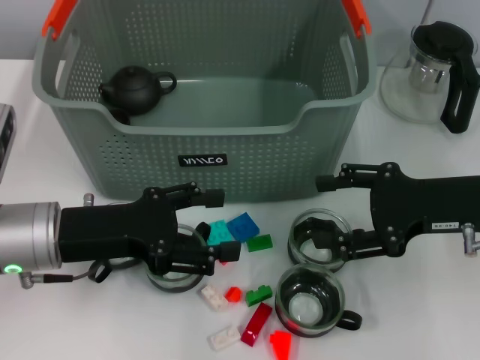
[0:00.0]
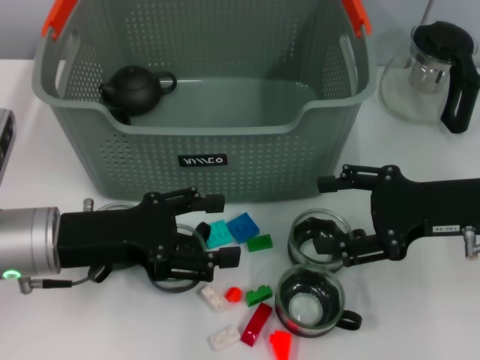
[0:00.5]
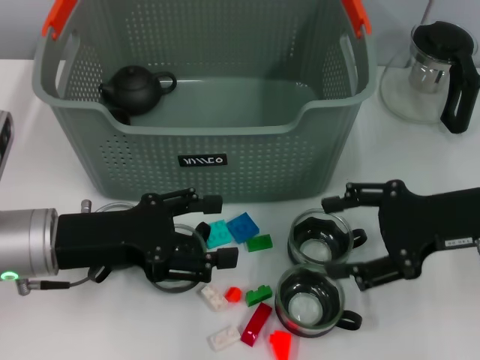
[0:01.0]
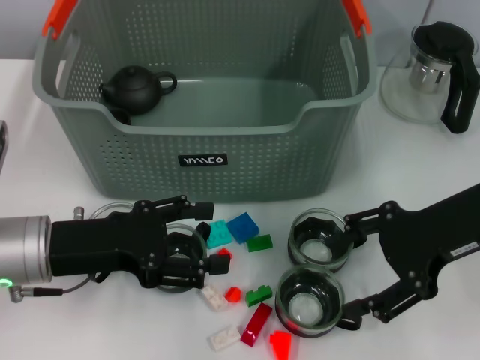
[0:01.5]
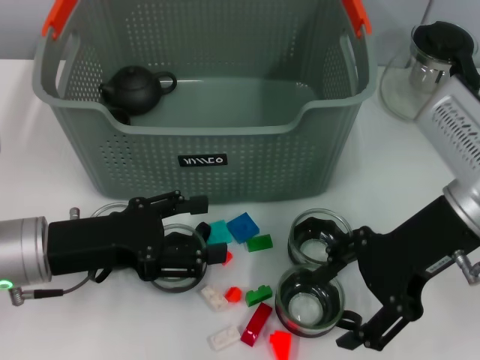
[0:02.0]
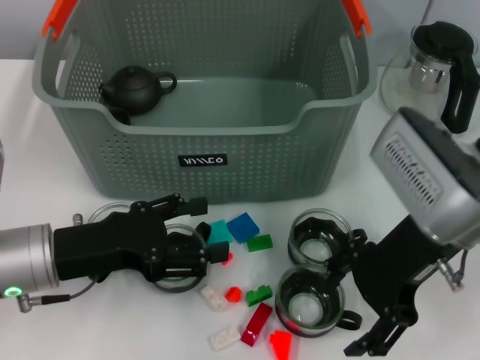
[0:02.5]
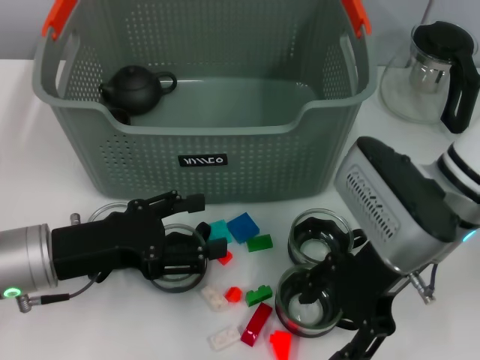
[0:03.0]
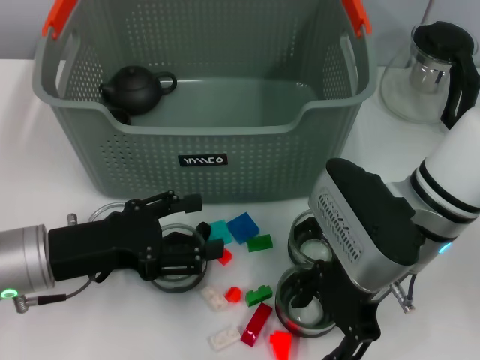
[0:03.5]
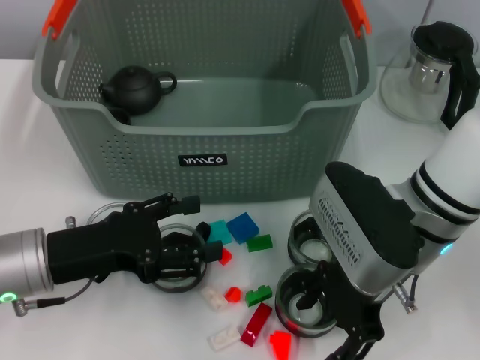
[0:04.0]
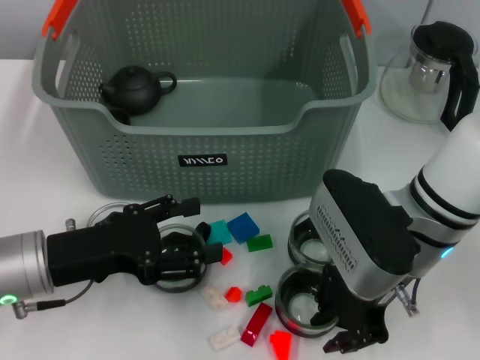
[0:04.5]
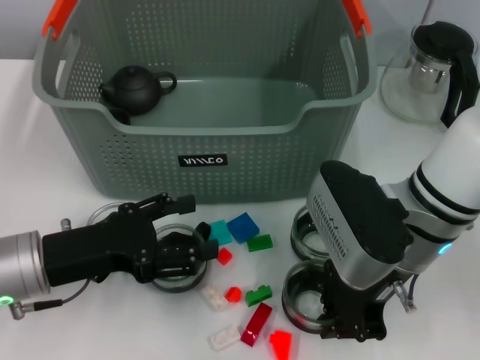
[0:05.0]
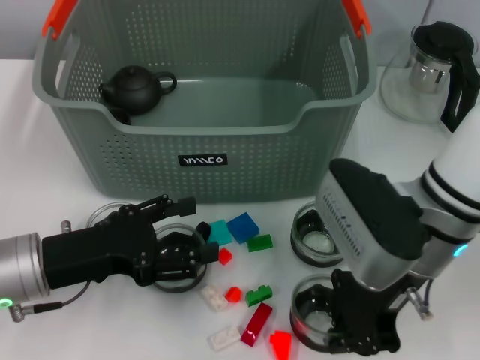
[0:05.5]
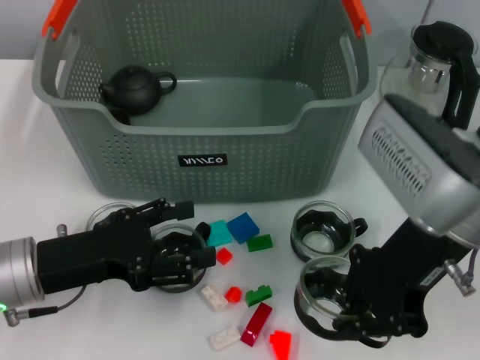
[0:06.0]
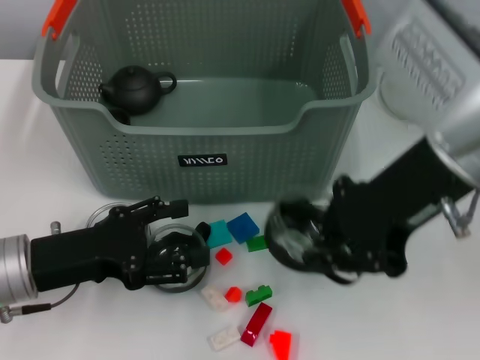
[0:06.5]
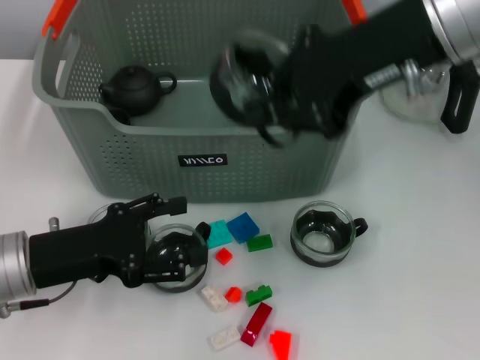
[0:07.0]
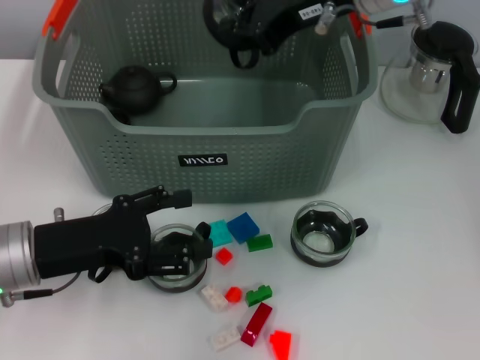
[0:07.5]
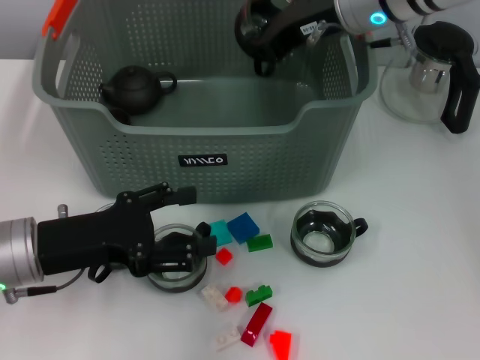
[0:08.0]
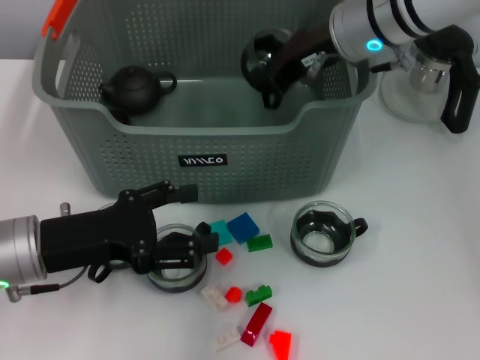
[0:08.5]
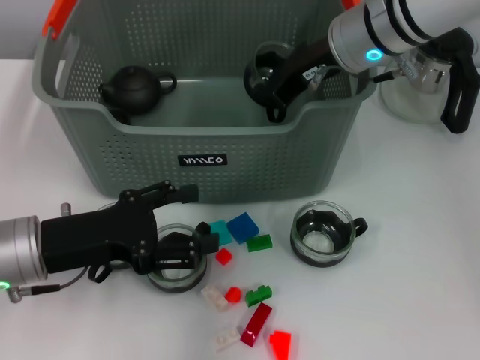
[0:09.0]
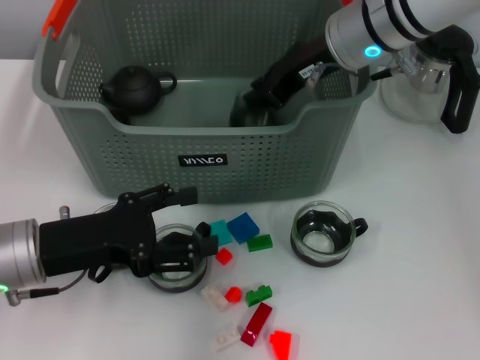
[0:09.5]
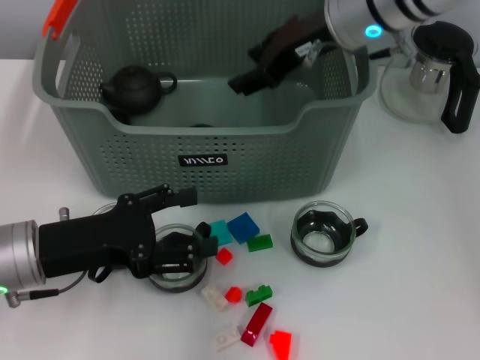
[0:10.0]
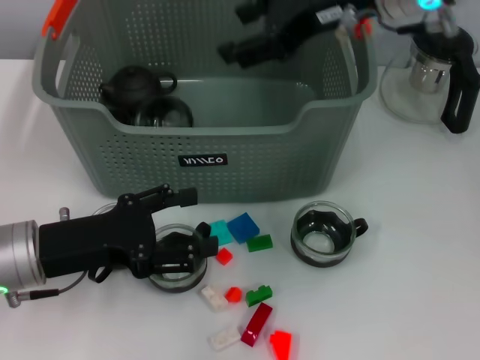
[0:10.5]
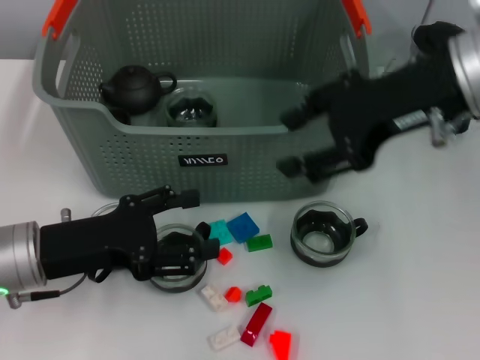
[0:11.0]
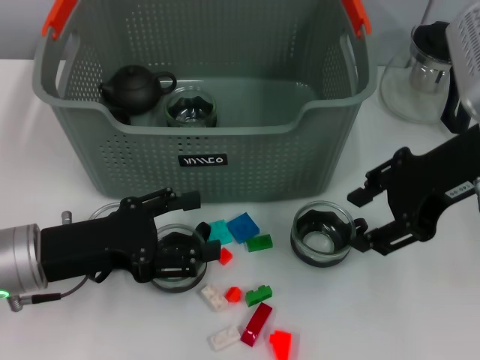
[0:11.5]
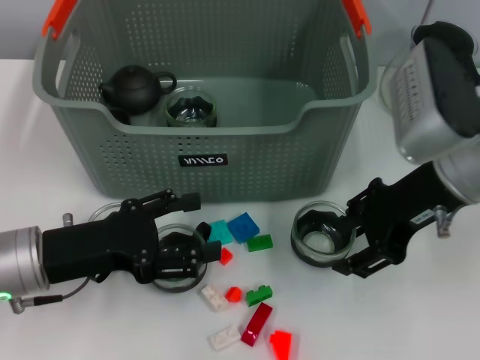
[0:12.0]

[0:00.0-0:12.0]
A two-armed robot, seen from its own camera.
Task of the whole recording: pick up the teacup on the table and place it into the storage bin, pick up the block on the table and place it into the storage bin.
Step, 0.0 to 5.0 s: Grasp the cup with right gripper.
Step, 5.5 to 9.5 s: Place the cup in the storage box with right gripper.
0.0 to 2.0 s: The right gripper shifts roughly 5 cm to the left.
2.0 to 4.0 s: The right gripper moves to the left, about 5 cm.
4.0 to 6.0 s: The right gripper is displaced upward by roughly 5 cm, and closes up.
6.0 to 8.0 s: The right gripper shifts about 15 cm forward.
8.0 to 10.0 s: The right gripper opens its fingers.
10.0 to 12.0 s: The right gripper goes some 15 cm backward and to the right.

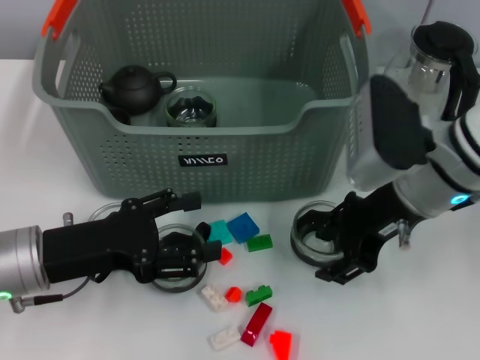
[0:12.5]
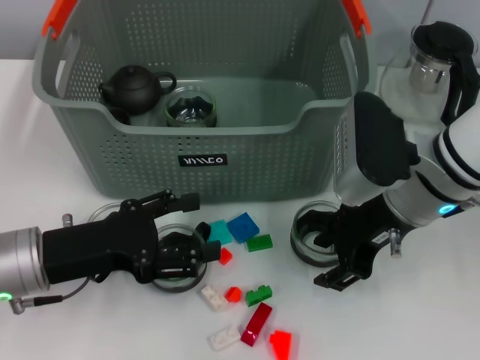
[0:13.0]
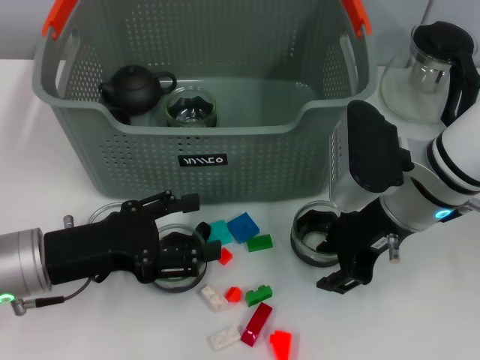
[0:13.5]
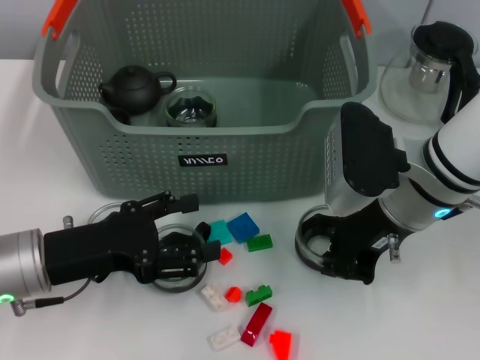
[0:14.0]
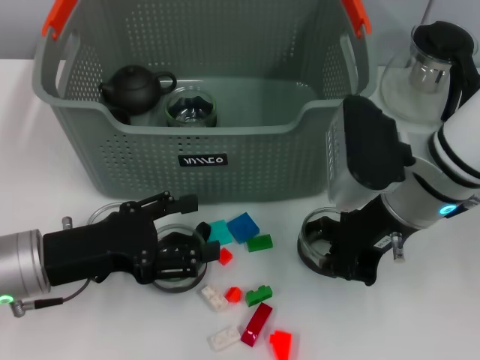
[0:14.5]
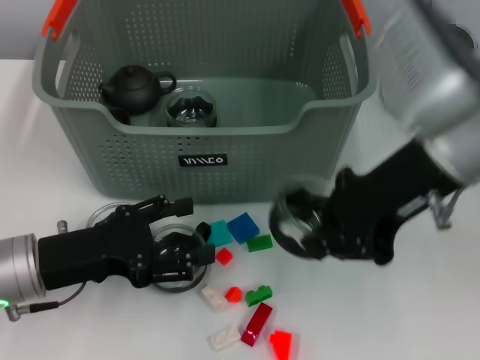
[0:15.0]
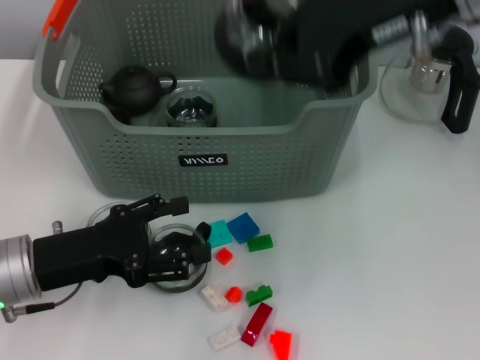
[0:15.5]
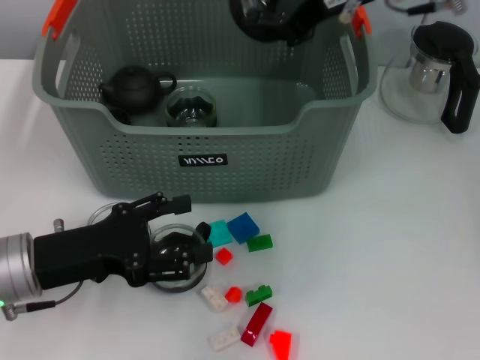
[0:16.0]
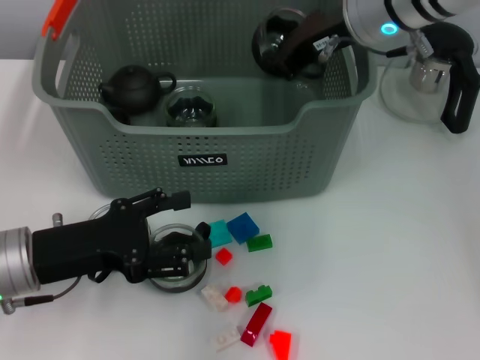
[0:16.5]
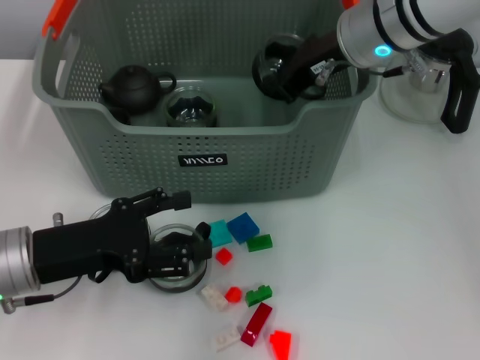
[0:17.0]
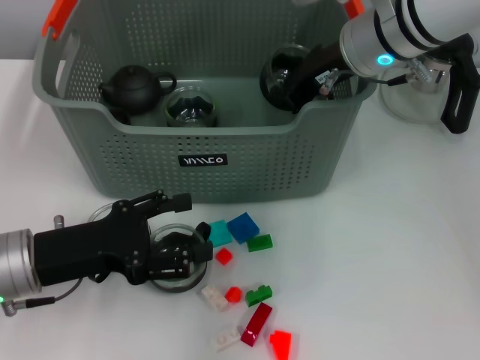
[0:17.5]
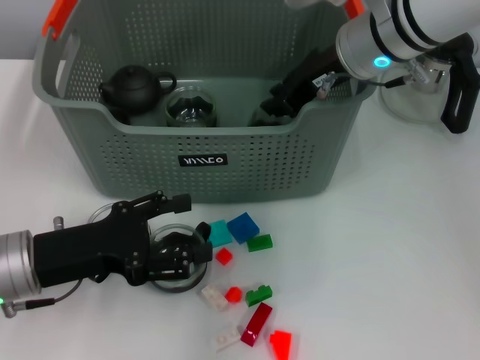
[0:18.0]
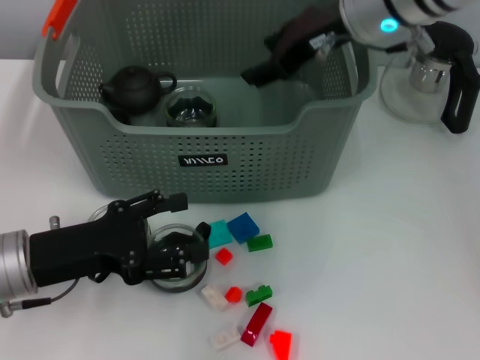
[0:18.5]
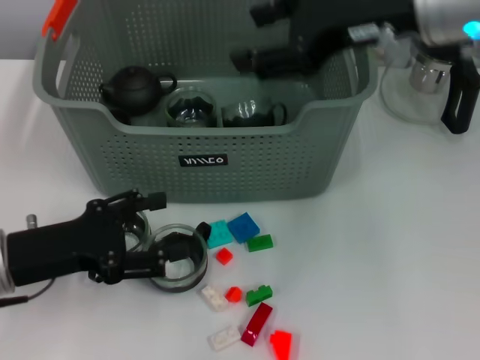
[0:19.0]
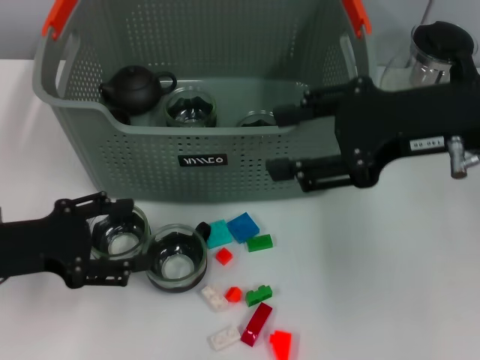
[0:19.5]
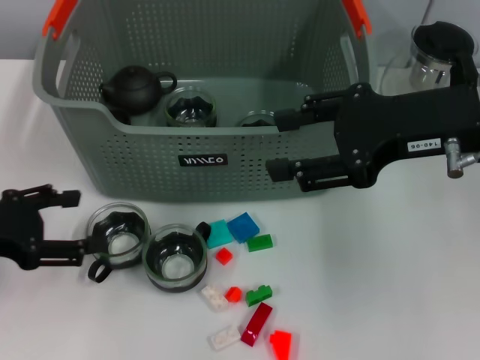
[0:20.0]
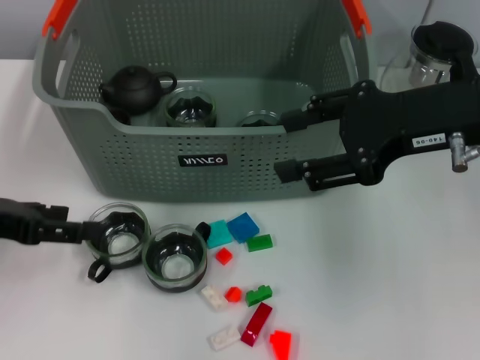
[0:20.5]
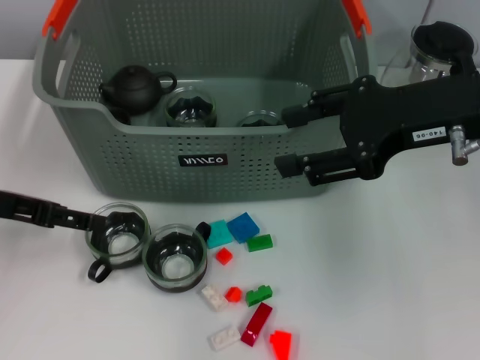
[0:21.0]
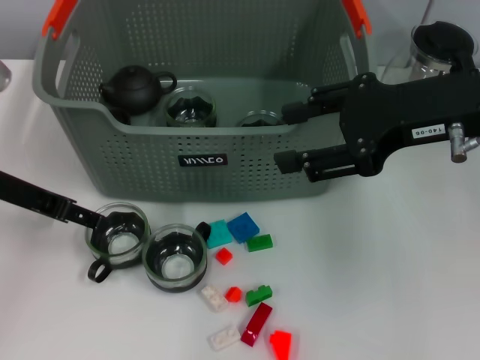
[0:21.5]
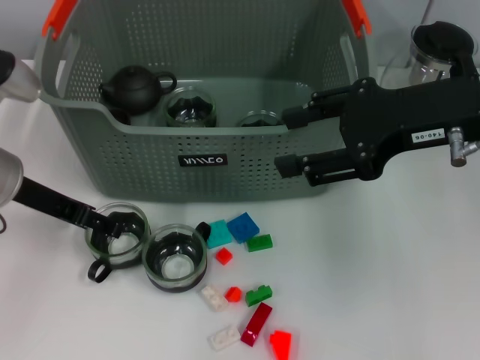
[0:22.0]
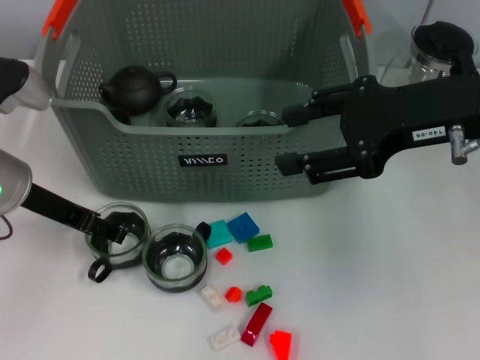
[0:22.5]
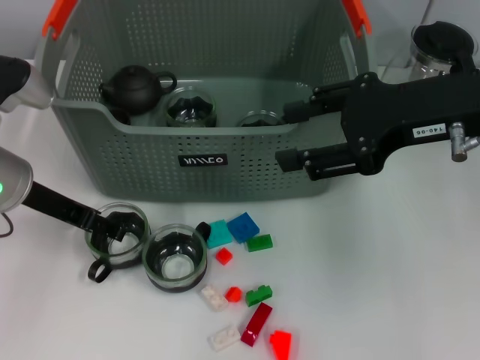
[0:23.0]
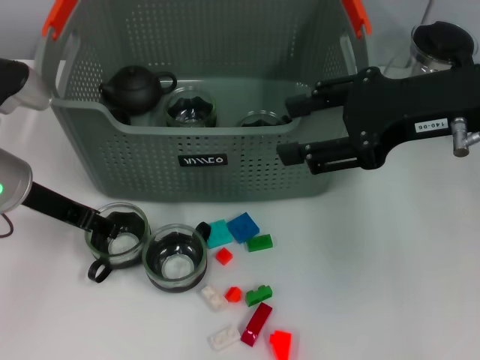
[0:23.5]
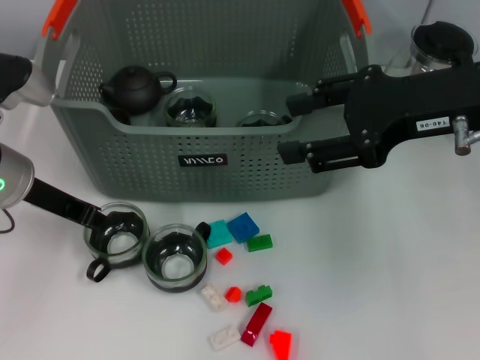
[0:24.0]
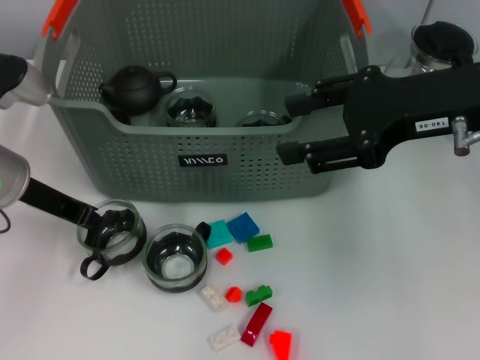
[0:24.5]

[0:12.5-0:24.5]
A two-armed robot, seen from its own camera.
Task of the whole recording: pick up the teacup on the table and place it into the storage bin, pick up the block on the table and place it into the storage bin.
Step, 14.5 to 18.0 s: Place the cup in the storage box with right gripper.
Step, 18.5 to 24.0 s: Grasp the cup with left gripper.
12.5 to 14.5 s: The right gripper closes.
14.5 to 16.5 s: The right gripper is displaced forward and upward by some 15 cm.
16.5 to 18.5 s: The right gripper opens.
18.5 to 20.5 s: The left gripper travels upward and to the left by roughly 10 cm. The right gripper moves backward and to the right, roughly 15 cm.
20.5 to 22.5 s: The left gripper shifts some 10 cm to the right and forward.
22.5 to 24.5 s: The left gripper closes up.

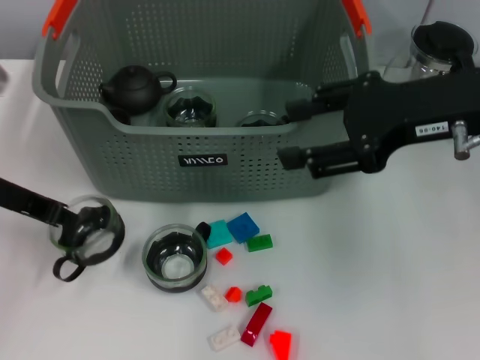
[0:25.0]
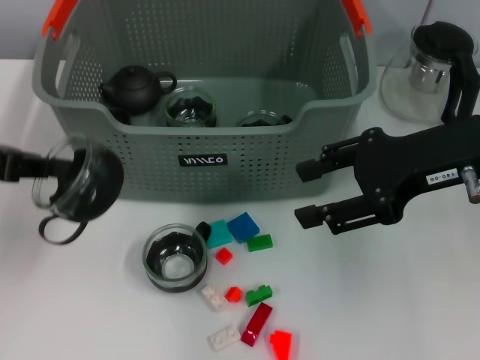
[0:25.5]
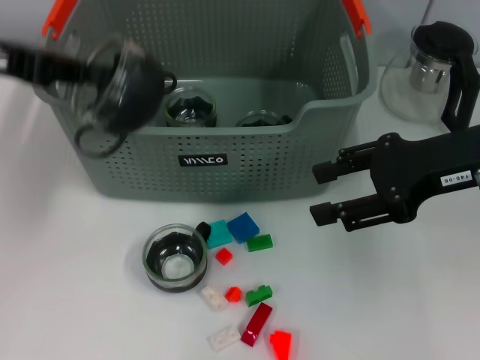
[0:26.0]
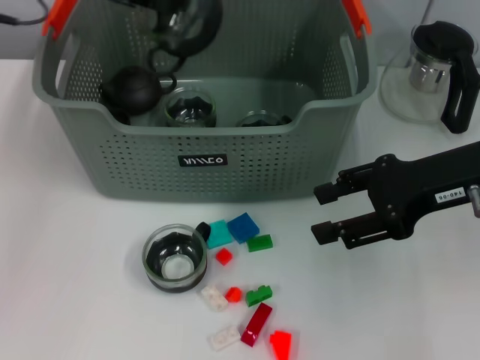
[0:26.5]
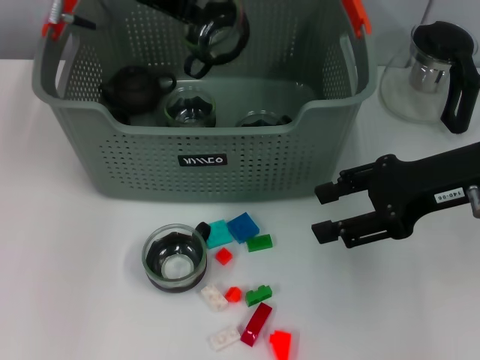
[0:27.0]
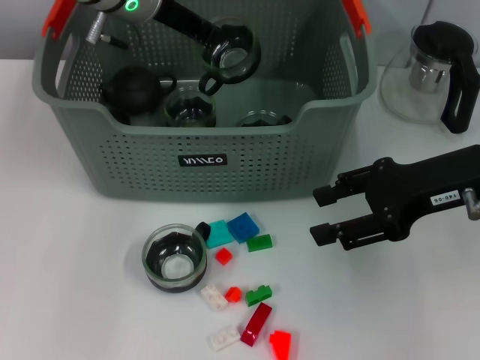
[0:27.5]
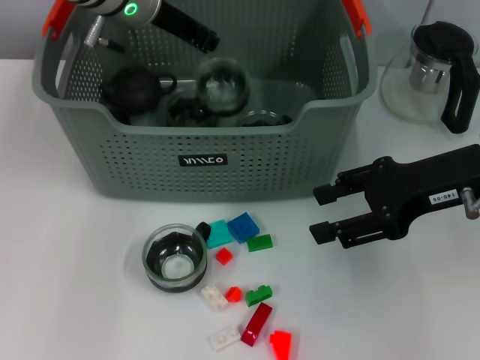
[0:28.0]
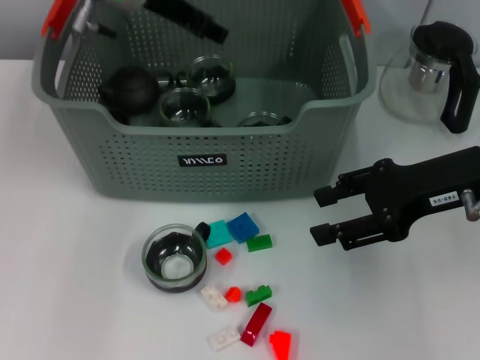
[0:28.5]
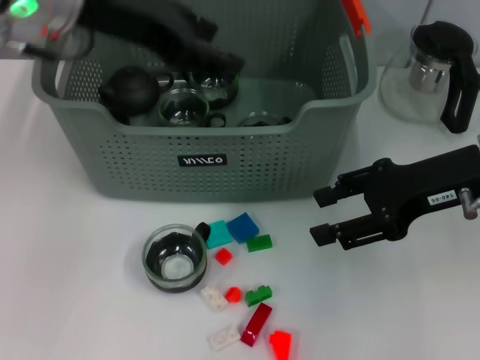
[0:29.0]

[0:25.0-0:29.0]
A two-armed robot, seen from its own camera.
Task of the whole recording: pick up the teacup on the table and place it into the storage bin, pick up the block on the table and place it into the storage bin.
Step, 25.0 to 28.0 s: Place the cup in the storage box with left gripper.
25.0 to 27.0 s: The left gripper moves forward, to the right and upward, roughly 20 cm; the right gripper moves downward, about 5 cm.
27.0 to 29.0 s: The left gripper shifts about 10 cm backward, and opens its fingers.
